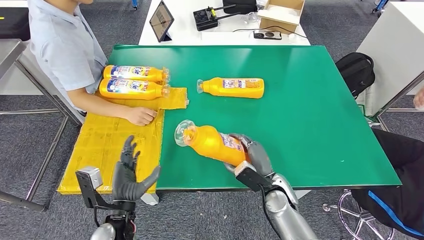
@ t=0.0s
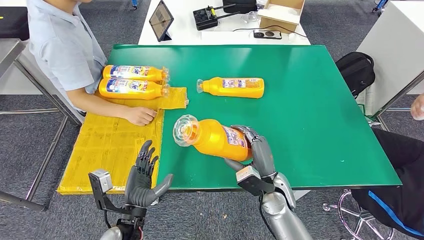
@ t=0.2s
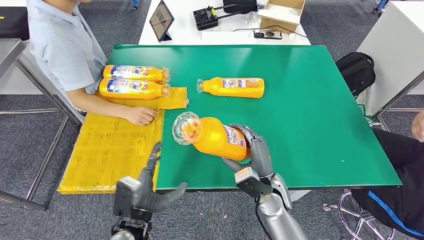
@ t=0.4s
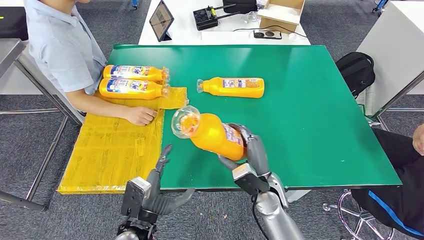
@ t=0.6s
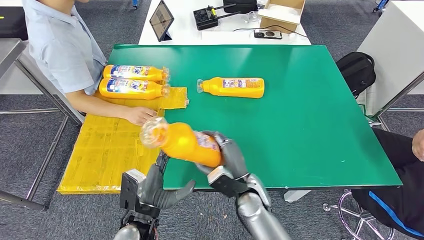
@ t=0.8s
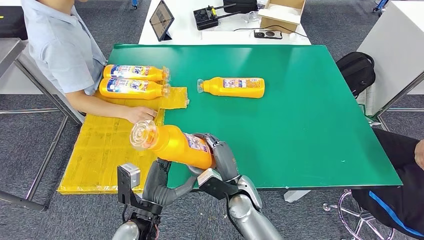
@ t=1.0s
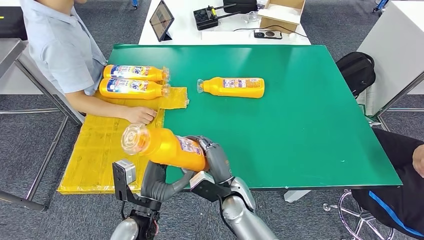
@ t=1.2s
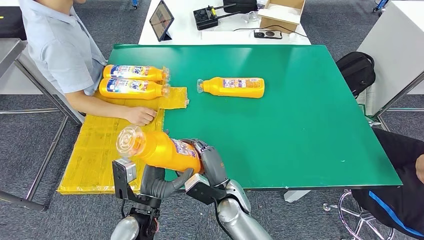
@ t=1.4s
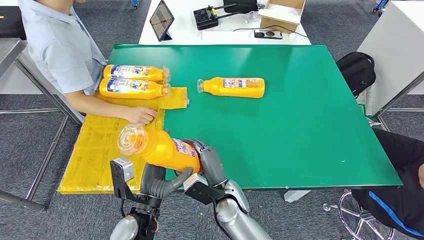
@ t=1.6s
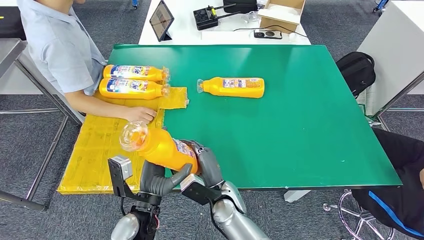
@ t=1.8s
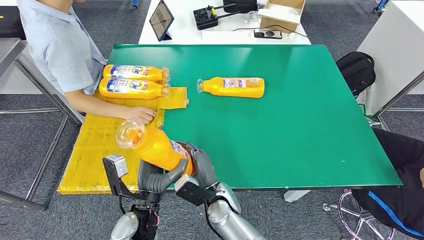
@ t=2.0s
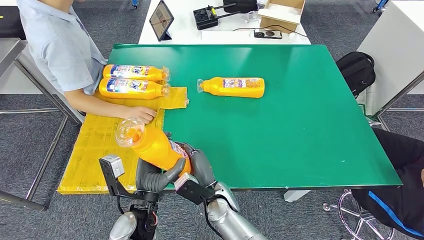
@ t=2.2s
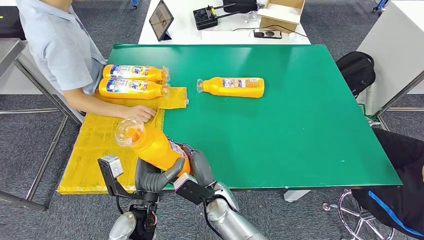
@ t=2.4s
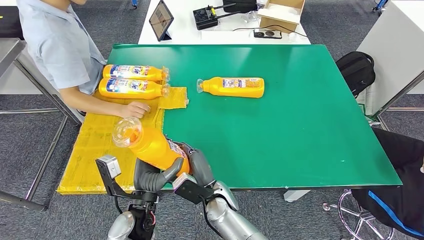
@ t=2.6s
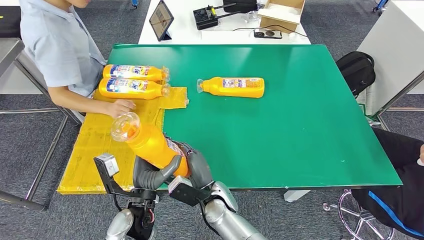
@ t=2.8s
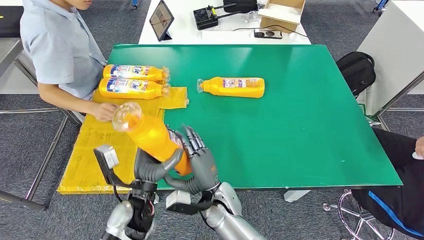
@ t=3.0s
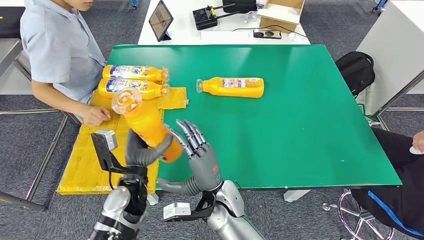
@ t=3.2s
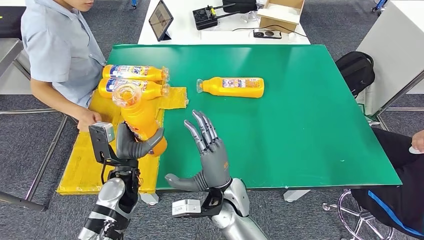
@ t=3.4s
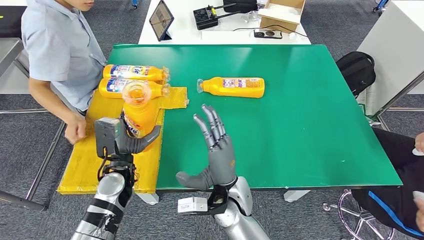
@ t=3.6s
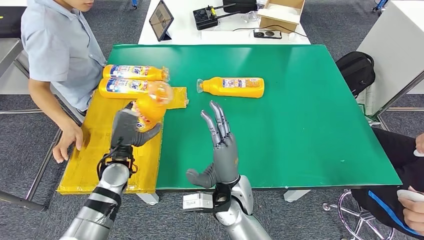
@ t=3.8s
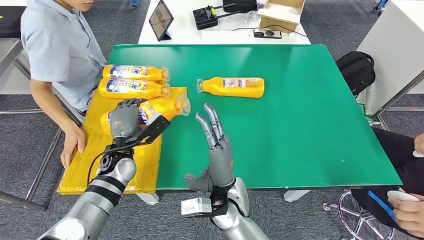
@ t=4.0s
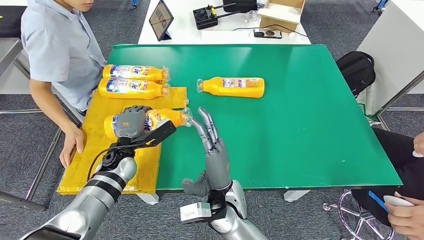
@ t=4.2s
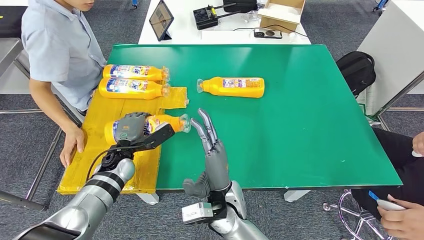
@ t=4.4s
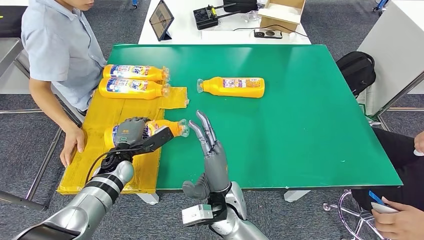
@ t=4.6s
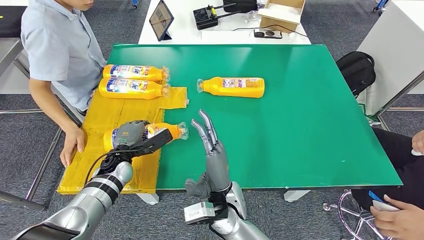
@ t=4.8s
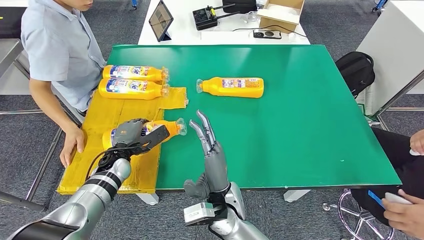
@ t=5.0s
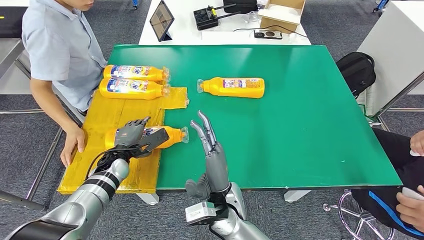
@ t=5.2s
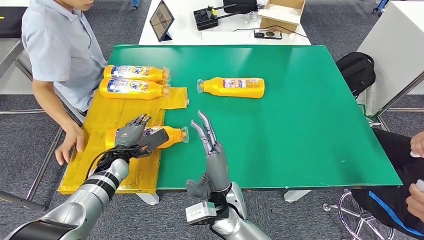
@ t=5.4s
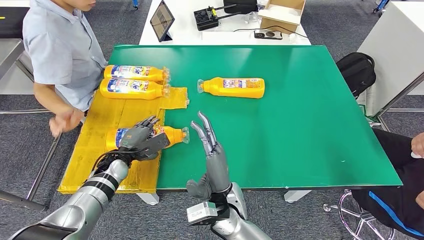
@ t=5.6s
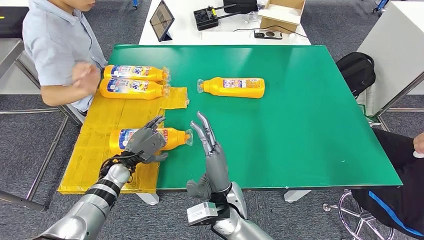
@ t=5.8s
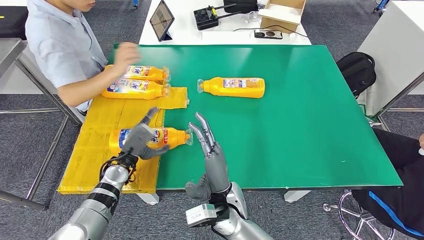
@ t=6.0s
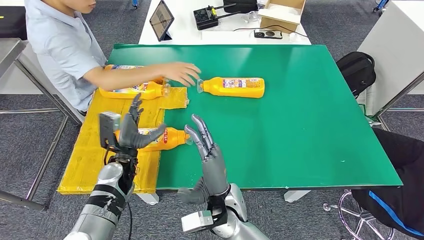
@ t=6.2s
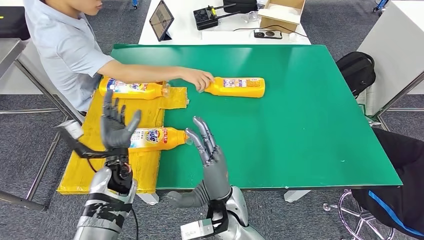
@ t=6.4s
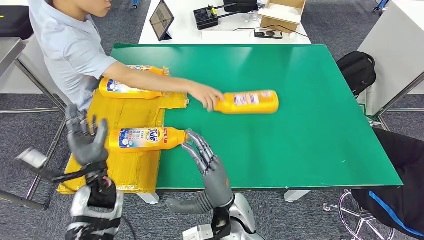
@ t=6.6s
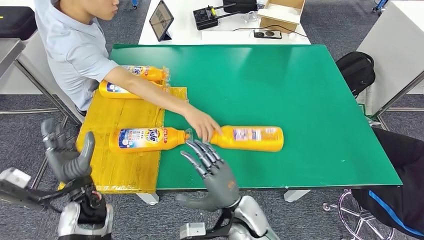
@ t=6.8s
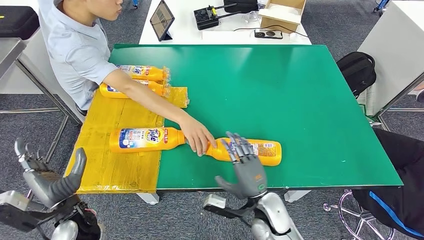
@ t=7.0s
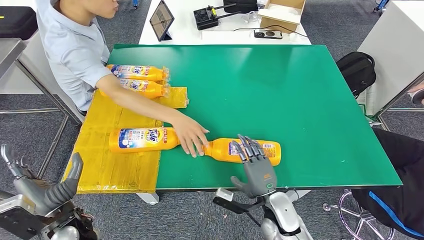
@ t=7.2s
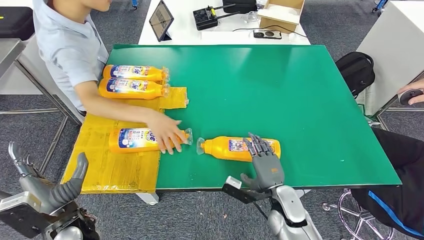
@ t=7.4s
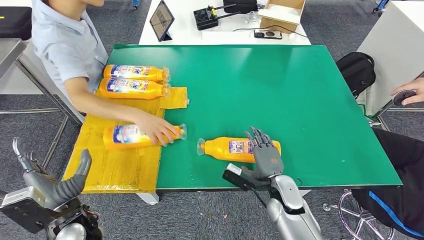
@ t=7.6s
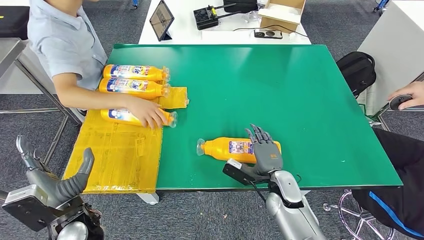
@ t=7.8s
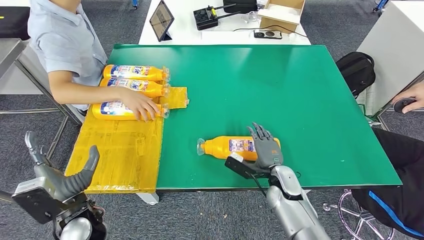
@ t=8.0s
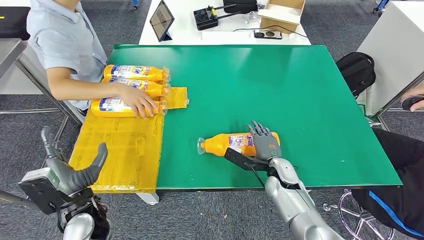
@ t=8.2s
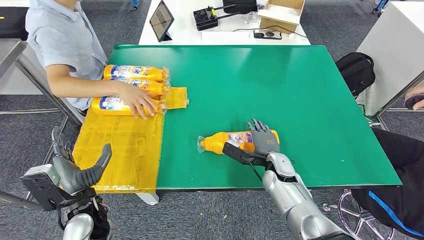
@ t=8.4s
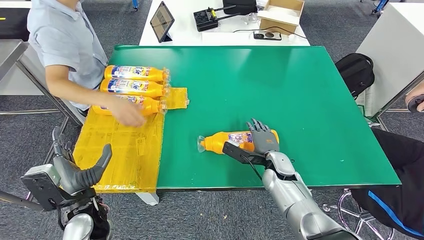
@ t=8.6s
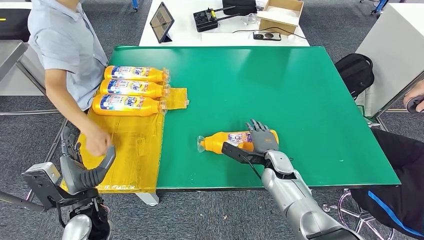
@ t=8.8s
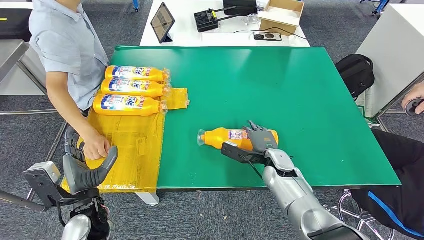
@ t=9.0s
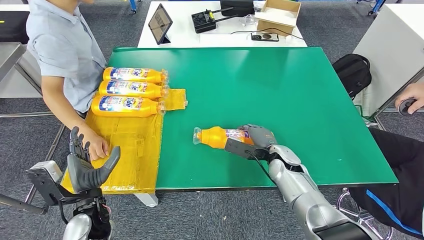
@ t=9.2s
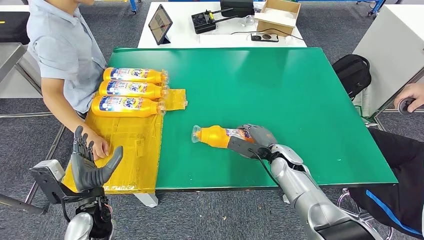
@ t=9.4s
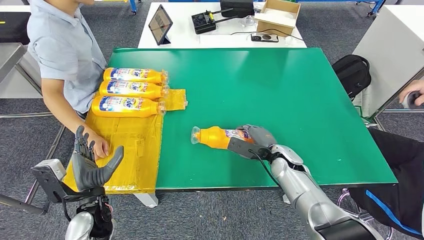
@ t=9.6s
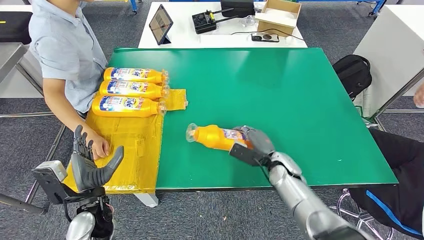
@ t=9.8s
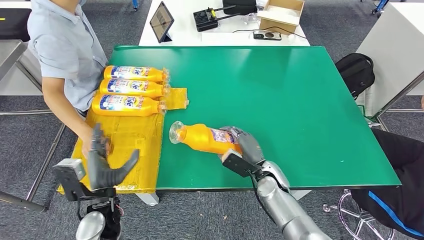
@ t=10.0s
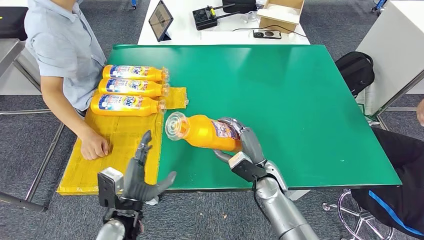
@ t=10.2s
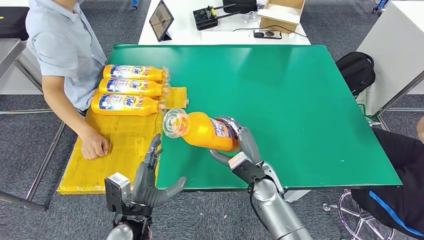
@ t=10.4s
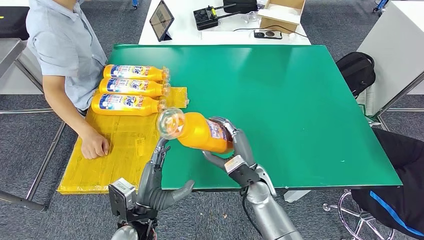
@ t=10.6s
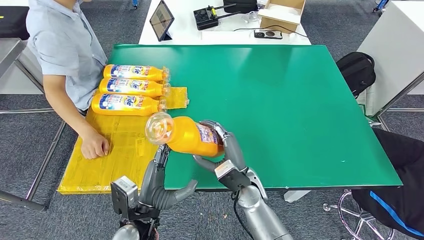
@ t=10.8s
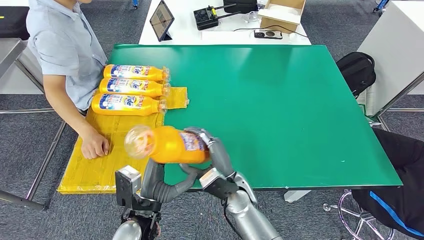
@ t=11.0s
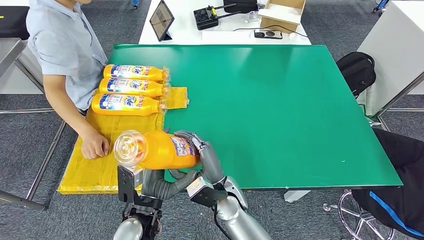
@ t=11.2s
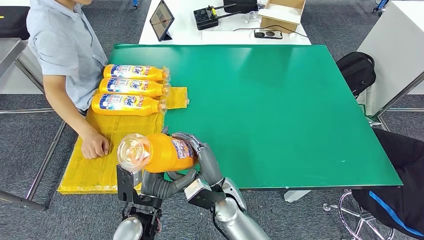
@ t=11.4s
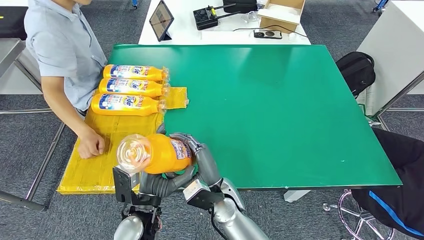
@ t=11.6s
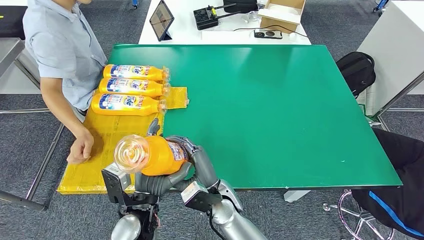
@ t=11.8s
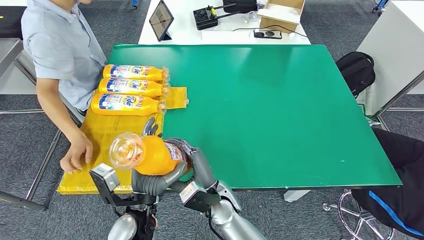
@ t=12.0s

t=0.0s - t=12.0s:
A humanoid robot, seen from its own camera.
Step, t=0.0s - t=1.4s: Pick up the bottle from the table.
Step, t=1.6s - t=5.8s: Flip the bottle to face forward.
Step, t=8.6s - t=11.6s: Pick up the bottle from the table.
t=0.0s - t=1.6s: The right hand is displaced to the left by about 15 cm. The left hand shifts roughly 5 cm to the right.
t=1.6s - t=3.0s: The hands stay close to where they were, moving slightly.
t=3.0s - t=4.4s: The right hand heads upward, covering some 5 cm; the left hand travels forward and to the left by about 15 cm.
t=10.4s - t=12.0s: The right hand goes about 15 cm to the left and backward.

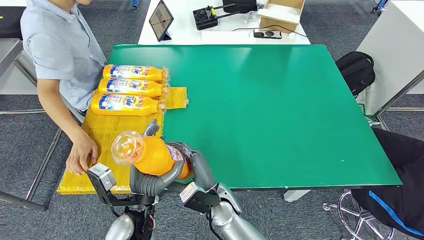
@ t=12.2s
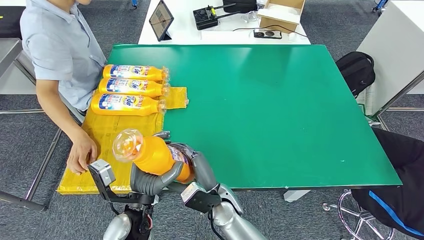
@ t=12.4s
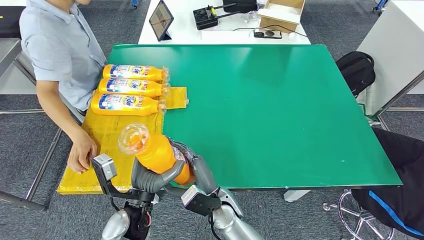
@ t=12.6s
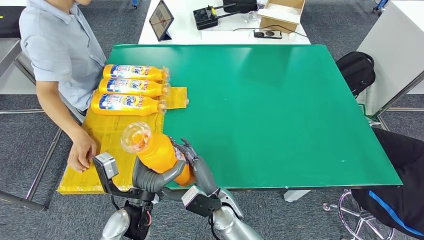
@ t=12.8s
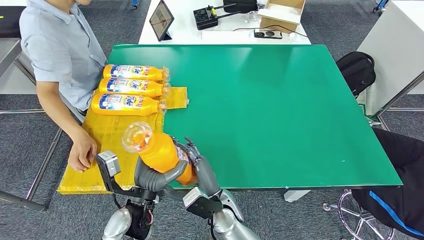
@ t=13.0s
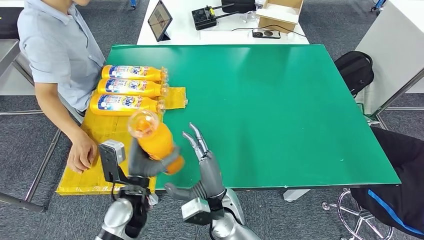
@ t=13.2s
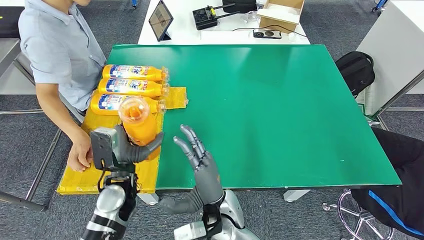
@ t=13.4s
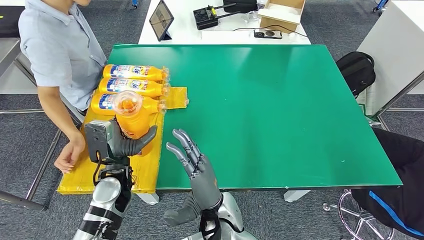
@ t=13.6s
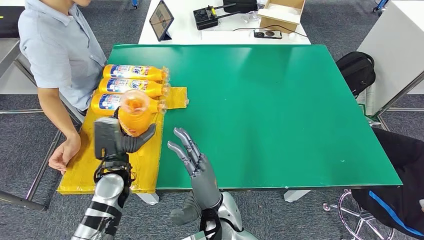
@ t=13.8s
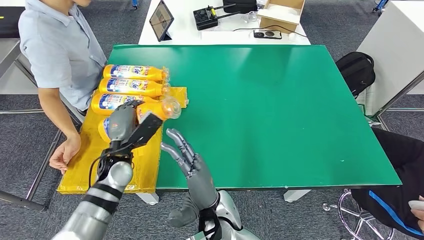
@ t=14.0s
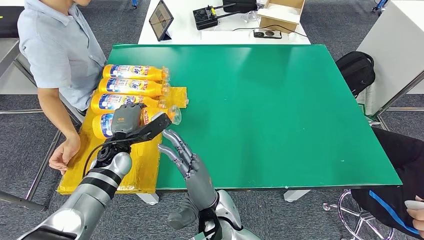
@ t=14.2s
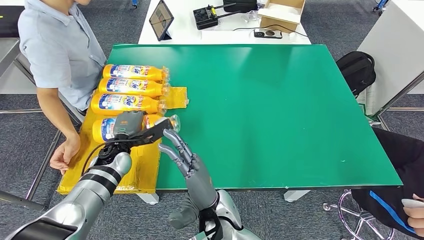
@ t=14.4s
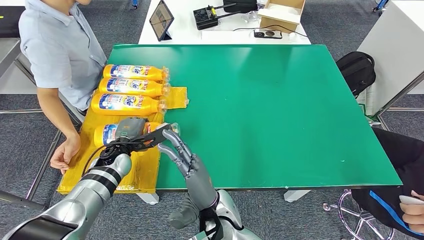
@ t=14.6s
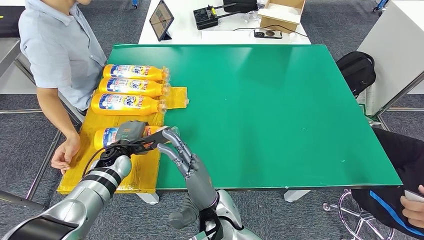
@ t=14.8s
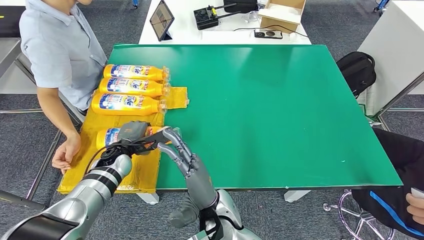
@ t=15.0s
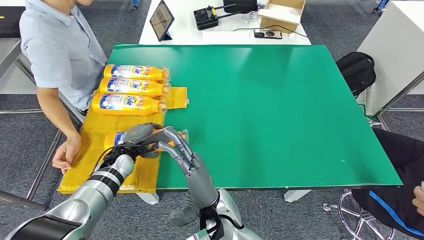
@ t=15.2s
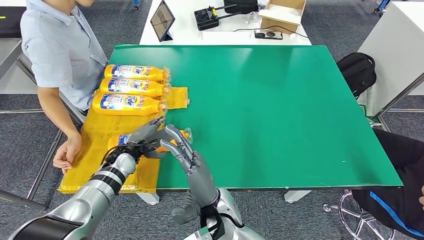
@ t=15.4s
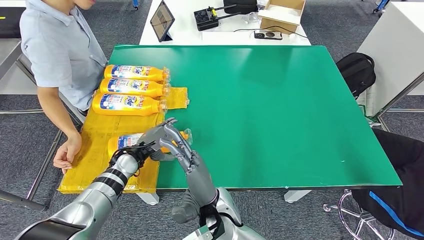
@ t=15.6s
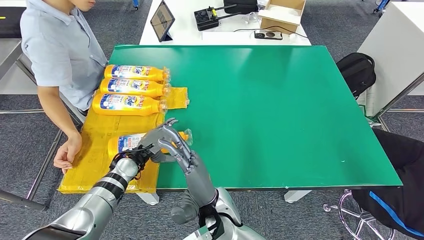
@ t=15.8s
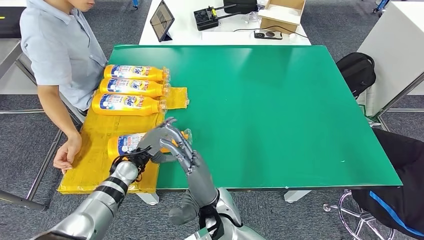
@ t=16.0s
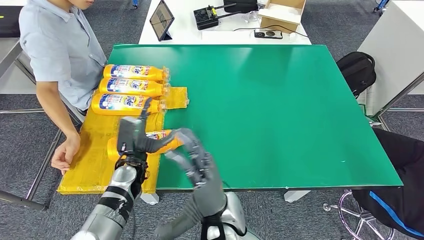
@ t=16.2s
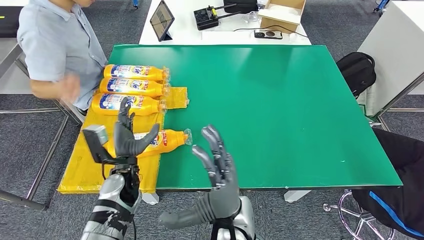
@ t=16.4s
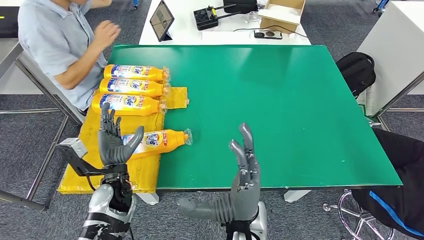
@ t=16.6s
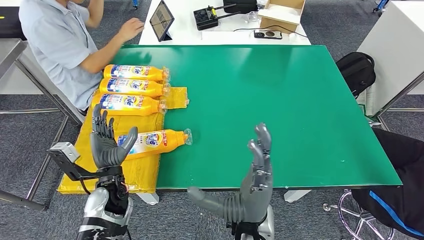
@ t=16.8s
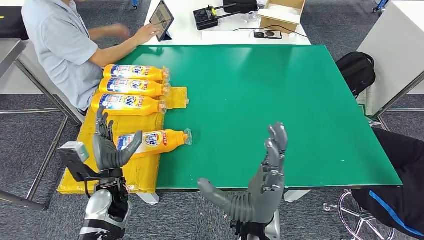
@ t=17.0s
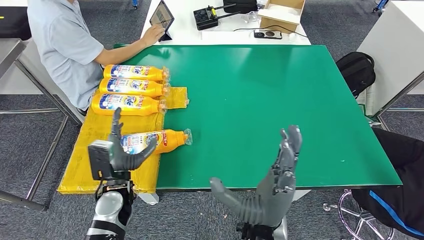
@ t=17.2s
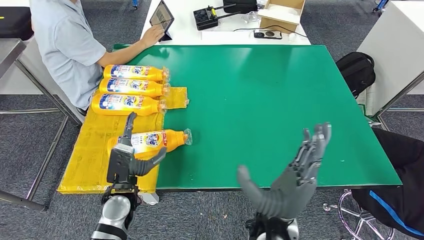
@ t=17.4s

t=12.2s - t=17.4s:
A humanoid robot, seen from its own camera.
Step, t=12.2s - t=17.4s: Flip the bottle to face forward.
t=12.2s - t=14.0s: The left hand is displaced forward and to the left by some 15 cm. The right hand heads upward, covering some 5 cm.
t=14.0s - t=15.6s: The left hand heads downward, covering some 5 cm.
